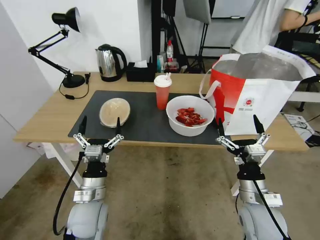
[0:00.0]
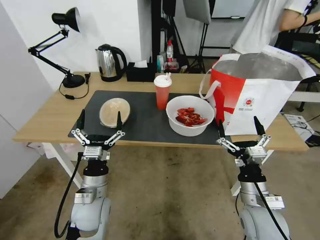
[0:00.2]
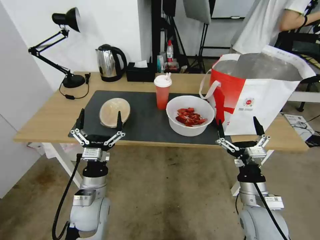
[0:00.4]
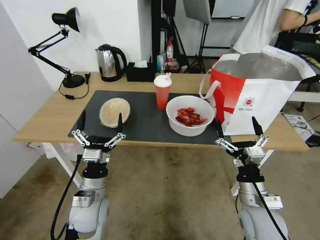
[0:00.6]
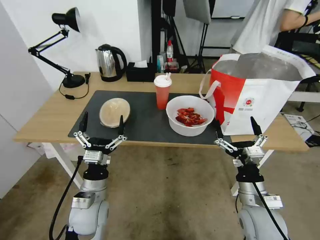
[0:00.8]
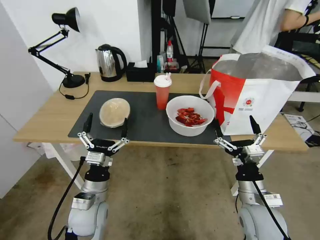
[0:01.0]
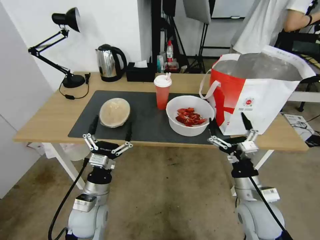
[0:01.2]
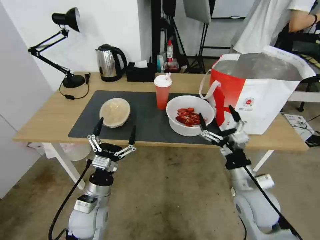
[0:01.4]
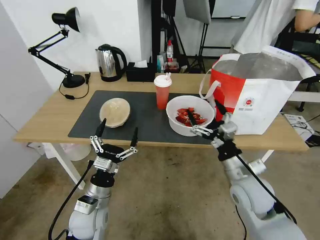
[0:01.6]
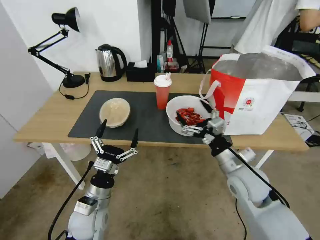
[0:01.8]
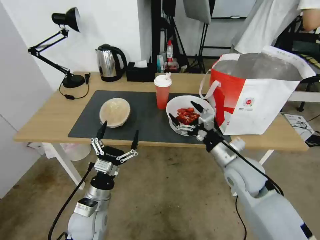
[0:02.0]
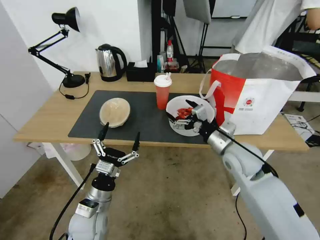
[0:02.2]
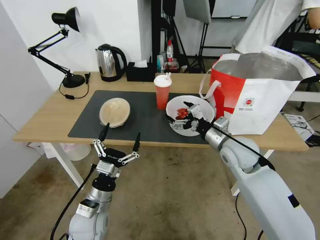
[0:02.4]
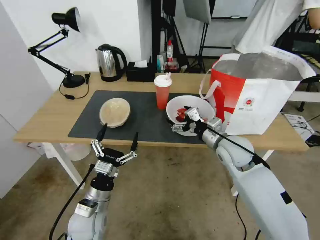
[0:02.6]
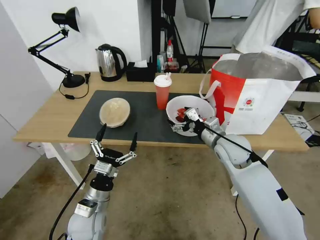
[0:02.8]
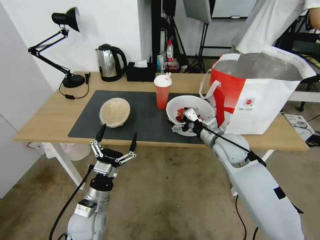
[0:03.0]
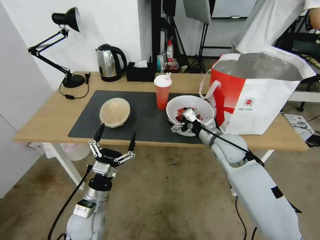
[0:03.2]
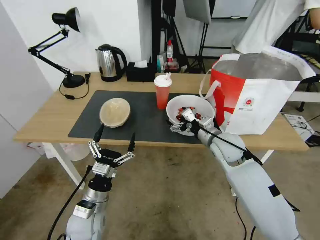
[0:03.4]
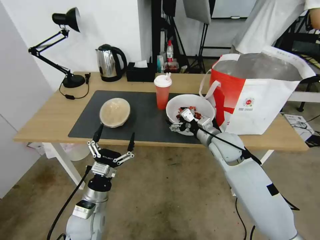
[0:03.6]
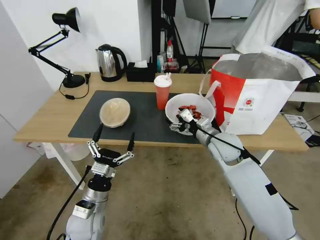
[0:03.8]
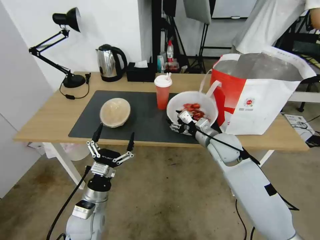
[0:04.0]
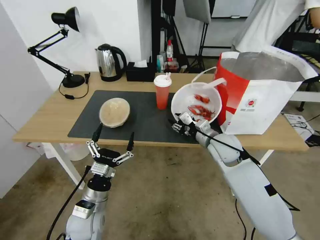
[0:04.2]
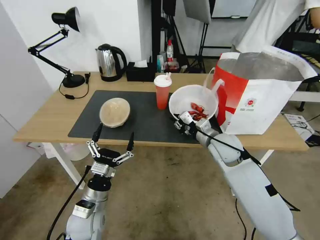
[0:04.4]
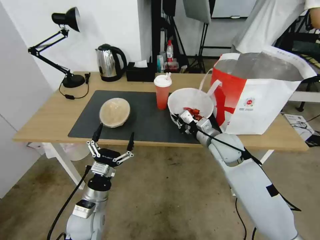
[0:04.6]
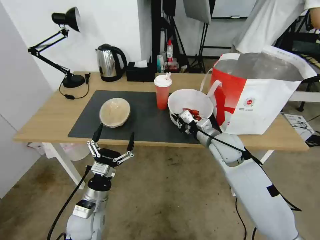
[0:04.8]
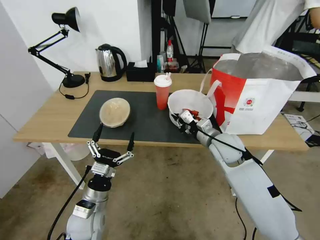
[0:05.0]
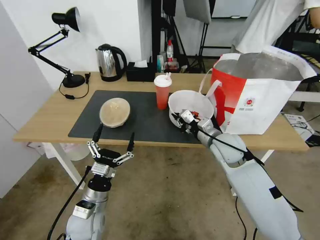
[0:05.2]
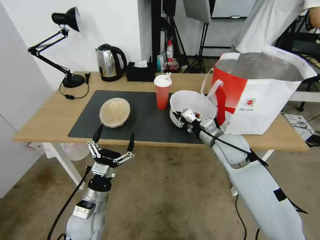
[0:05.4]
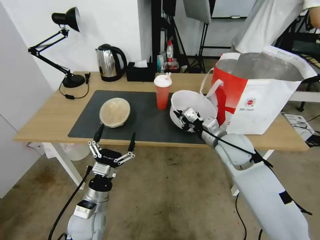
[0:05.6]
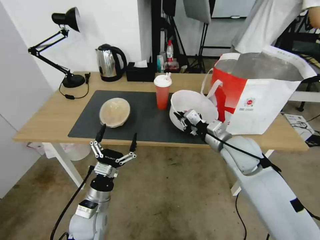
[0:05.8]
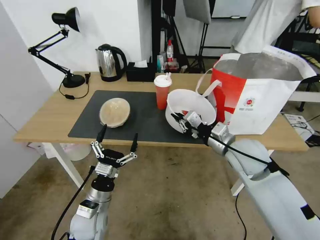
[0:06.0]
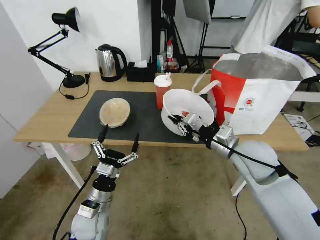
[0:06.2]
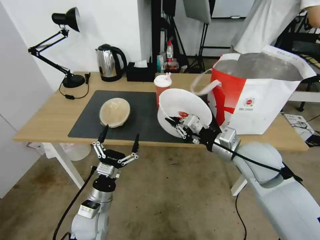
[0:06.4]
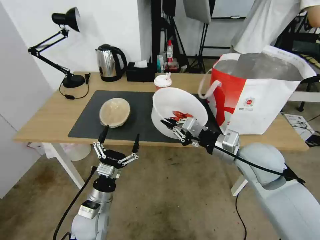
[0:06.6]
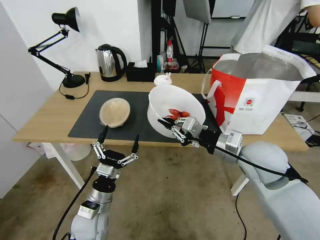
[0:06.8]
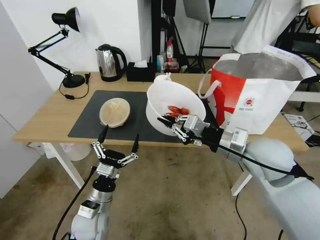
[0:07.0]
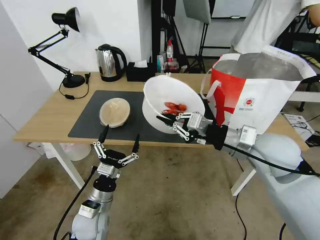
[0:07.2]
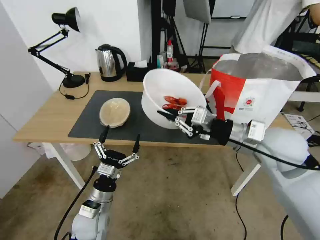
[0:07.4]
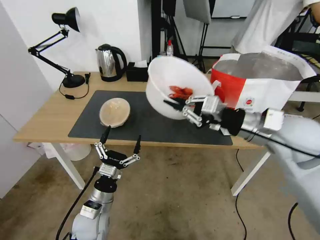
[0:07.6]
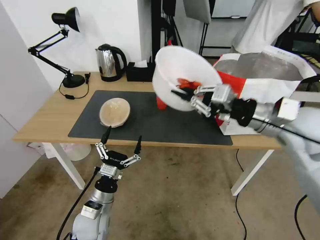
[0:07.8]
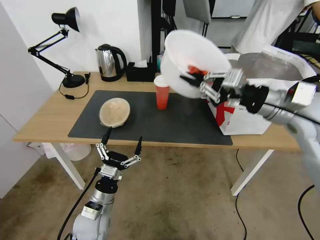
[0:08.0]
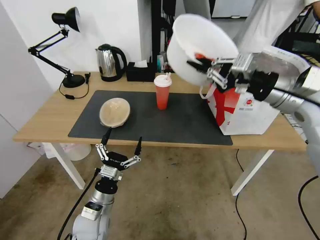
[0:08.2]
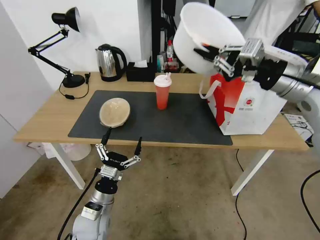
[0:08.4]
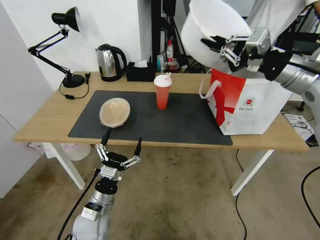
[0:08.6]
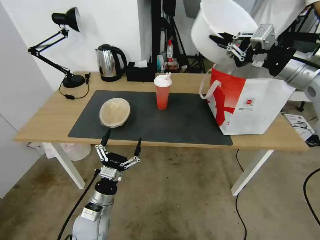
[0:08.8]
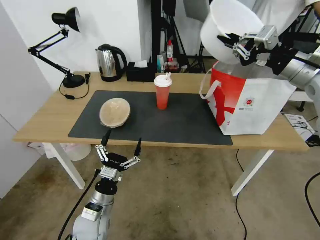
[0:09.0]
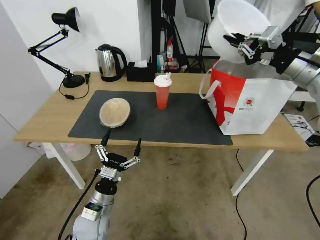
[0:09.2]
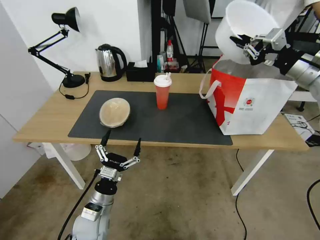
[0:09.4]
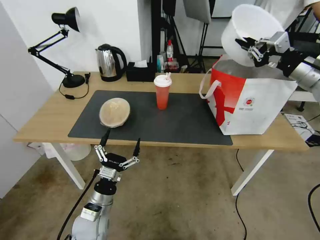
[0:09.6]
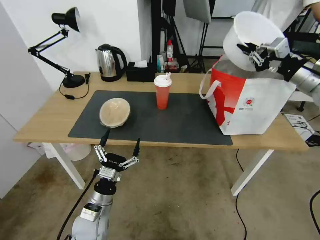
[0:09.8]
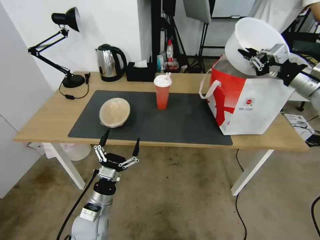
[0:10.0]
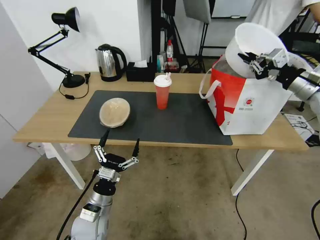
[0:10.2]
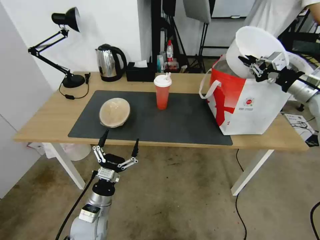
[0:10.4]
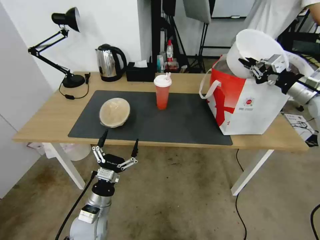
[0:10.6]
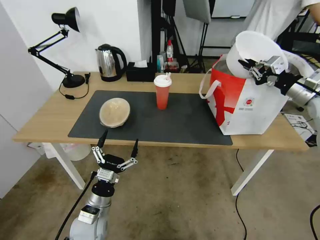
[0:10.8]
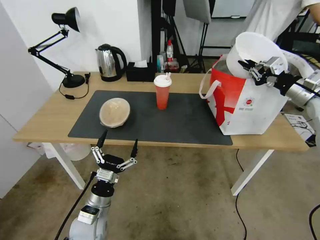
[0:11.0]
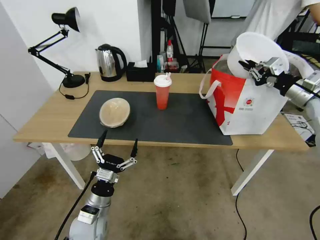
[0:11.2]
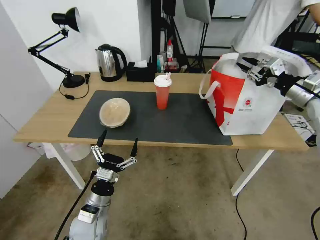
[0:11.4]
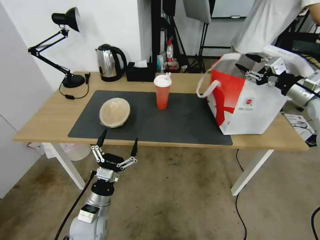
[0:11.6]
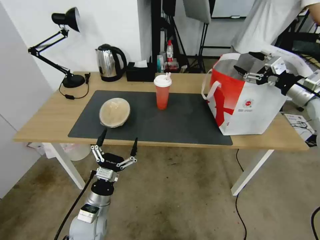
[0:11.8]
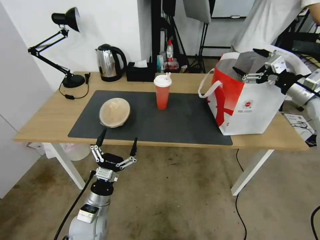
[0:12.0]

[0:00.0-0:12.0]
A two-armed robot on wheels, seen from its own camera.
Task of the whole recording: Pick up the trash from the table and place it into the takeout bag.
0:00.0 to 0:01.6: The right gripper heads forward, covering approximately 5 cm.
0:01.6 to 0:03.0: The right gripper moves forward, roughly 10 cm.
0:03.0 to 0:04.4: The right gripper closes its fingers.
0:04.4 to 0:06.0: The right gripper shifts about 10 cm backward and upward.
0:06.0 to 0:07.6: The right gripper heads upward, covering approximately 10 cm.
0:07.6 to 0:09.0: The right gripper heads upward, to the right and forward, covering roughly 15 cm.
0:09.0 to 0:10.4: The right gripper moves to the right and downward, roughly 15 cm.
0:10.4 to 0:12.0: The right gripper opens.

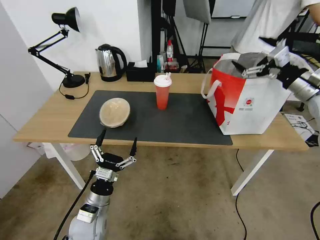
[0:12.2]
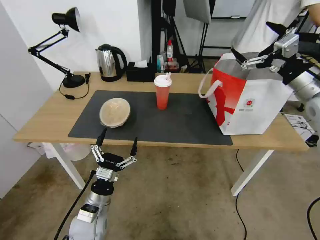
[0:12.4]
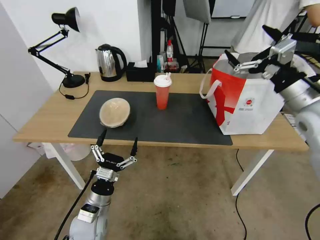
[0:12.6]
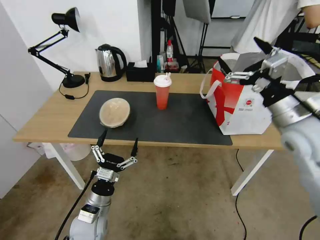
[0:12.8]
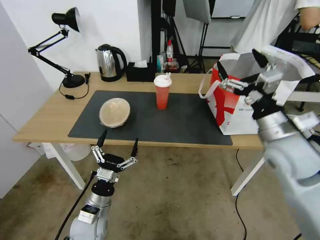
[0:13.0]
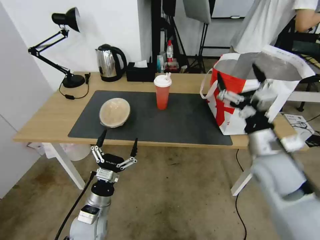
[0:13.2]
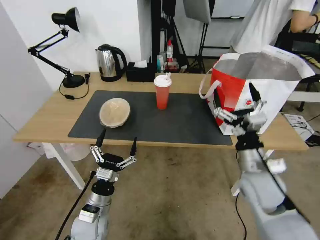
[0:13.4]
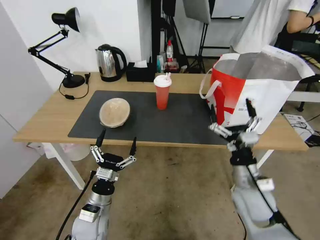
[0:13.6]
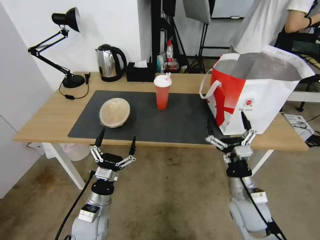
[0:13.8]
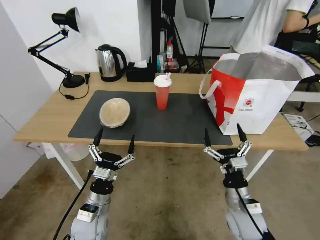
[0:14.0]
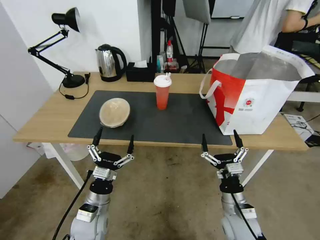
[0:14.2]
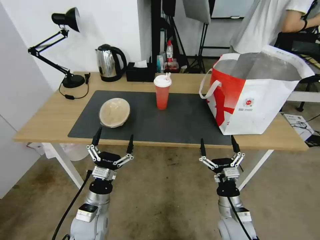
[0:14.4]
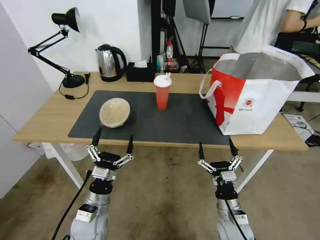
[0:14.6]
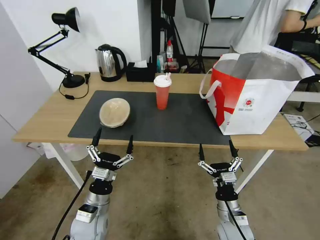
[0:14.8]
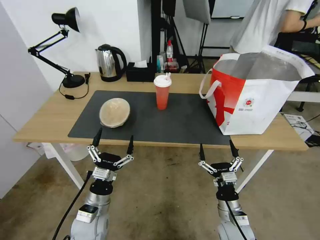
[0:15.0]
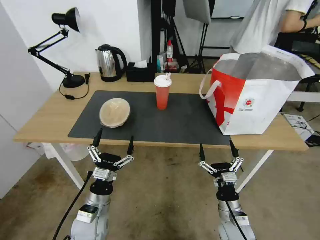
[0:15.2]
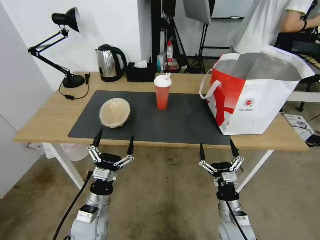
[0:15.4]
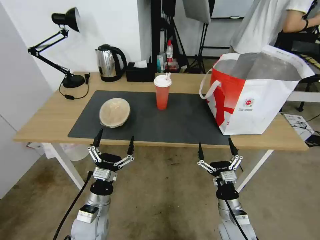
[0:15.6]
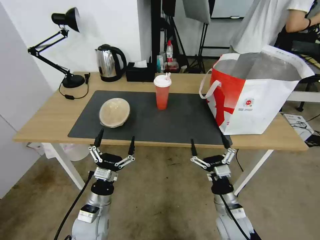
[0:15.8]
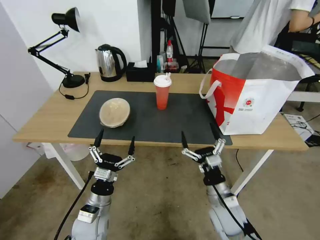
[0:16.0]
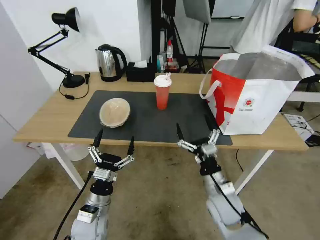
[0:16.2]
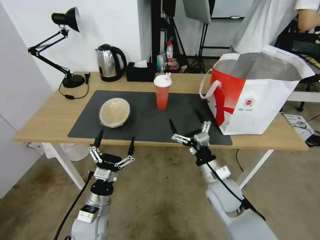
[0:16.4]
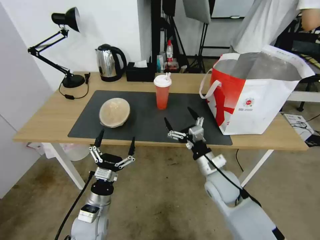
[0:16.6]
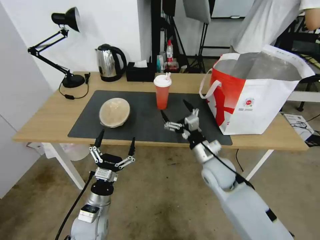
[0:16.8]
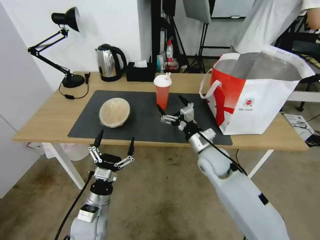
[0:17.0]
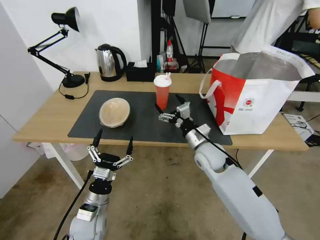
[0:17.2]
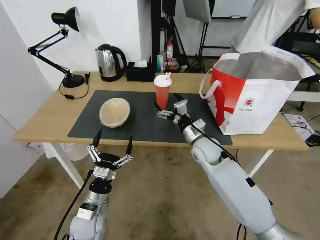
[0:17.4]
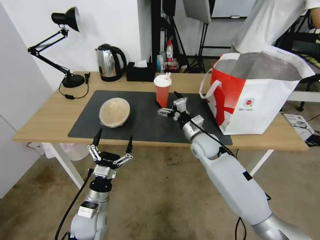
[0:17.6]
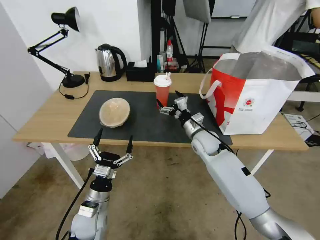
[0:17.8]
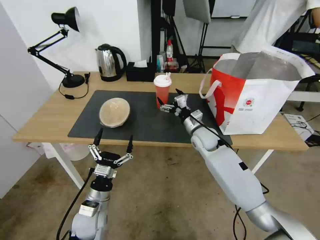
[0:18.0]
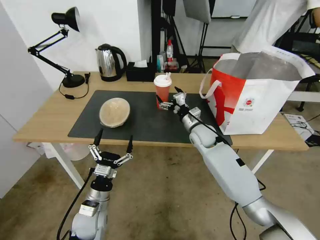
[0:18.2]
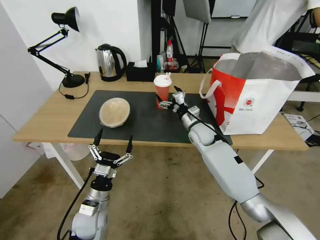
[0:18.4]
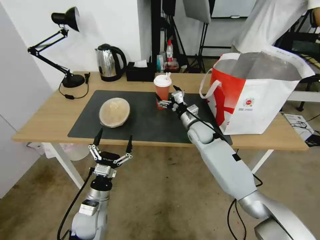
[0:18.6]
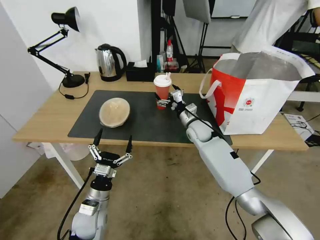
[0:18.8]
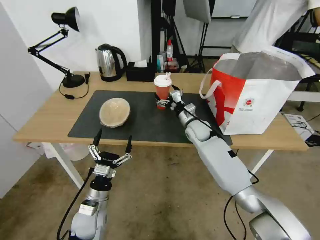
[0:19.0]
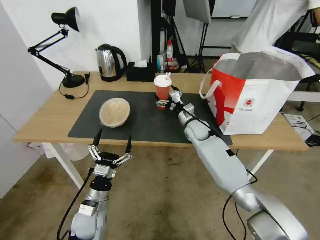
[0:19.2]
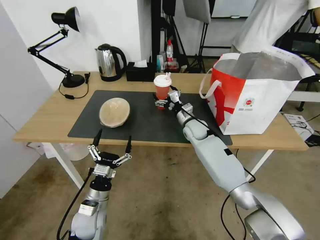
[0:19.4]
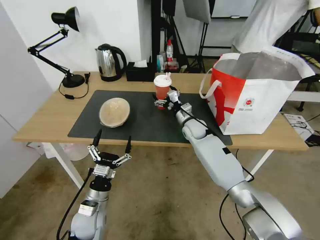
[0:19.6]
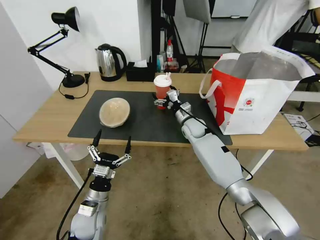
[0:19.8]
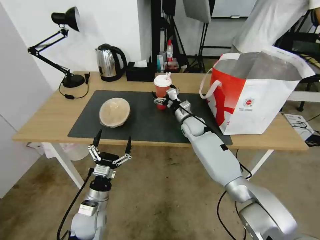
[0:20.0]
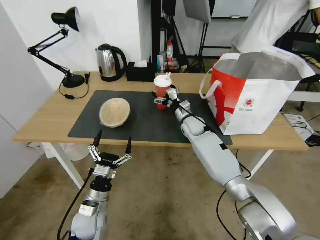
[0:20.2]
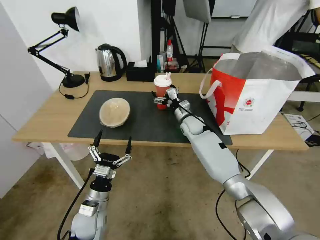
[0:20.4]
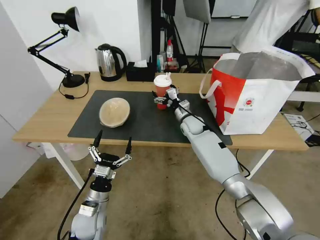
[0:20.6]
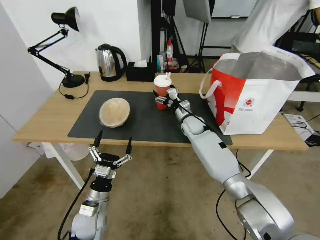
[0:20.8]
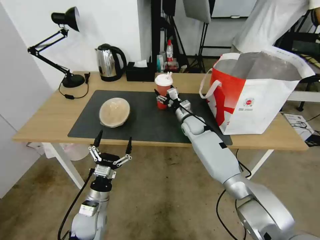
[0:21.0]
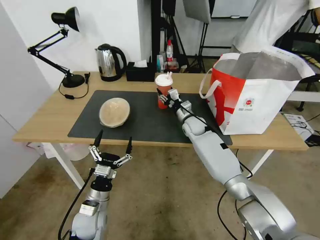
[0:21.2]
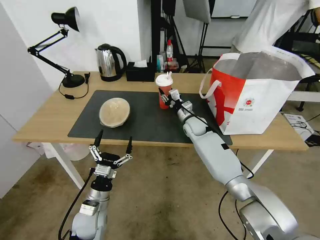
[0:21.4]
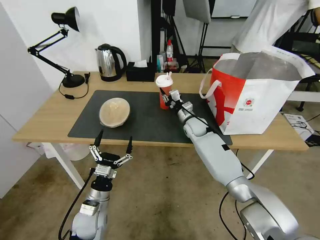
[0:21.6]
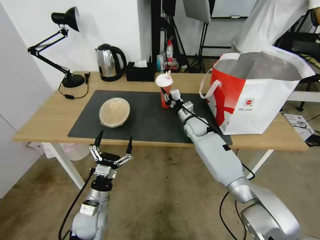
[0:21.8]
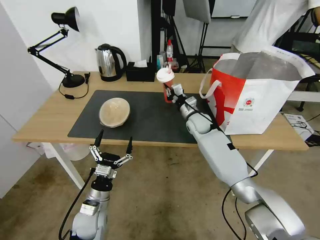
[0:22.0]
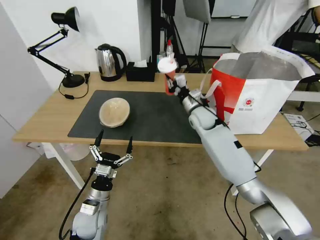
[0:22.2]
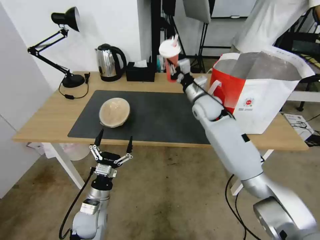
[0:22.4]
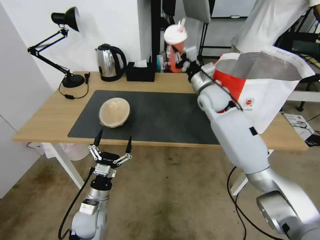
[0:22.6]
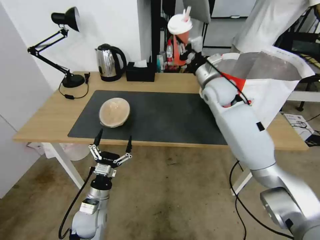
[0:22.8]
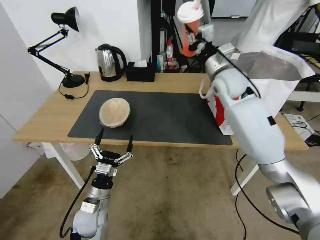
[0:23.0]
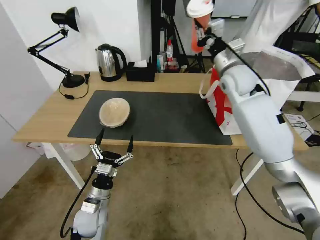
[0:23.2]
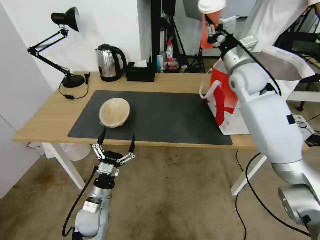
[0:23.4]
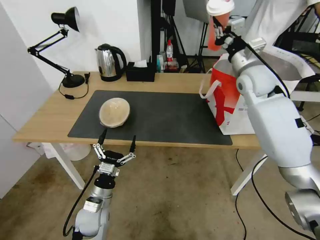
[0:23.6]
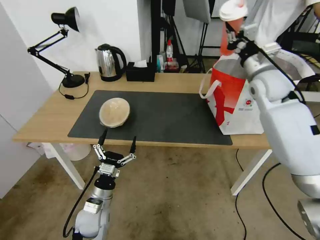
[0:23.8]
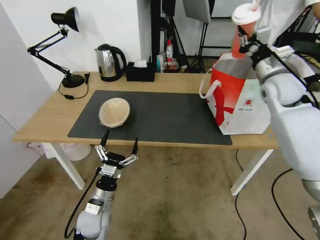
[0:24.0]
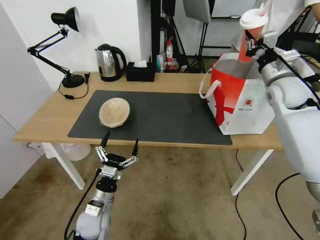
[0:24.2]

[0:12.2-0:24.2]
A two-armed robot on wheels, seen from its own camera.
Task of the whole recording: Pick up the trash from the table and place it into the takeout bag.
0:12.2 to 0:13.8: The right gripper moves downward, to the left and backward, roughly 35 cm.
0:13.8 to 0:15.2: The right gripper travels downward by some 10 cm.
0:15.2 to 0:16.6: The right gripper heads upward and forward, covering approximately 15 cm.
0:16.6 to 0:18.2: The right gripper shifts some 20 cm forward.
0:18.2 to 0:19.8: The right gripper heads forward, covering roughly 5 cm.
0:19.8 to 0:21.2: The right gripper closes up.
0:21.2 to 0:22.6: The right gripper moves upward, approximately 15 cm, and closes up.
0:22.6 to 0:24.2: The right gripper travels to the right by approximately 20 cm.
